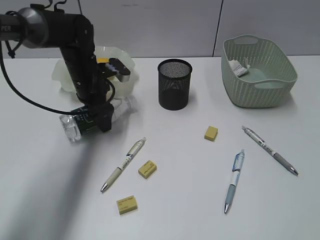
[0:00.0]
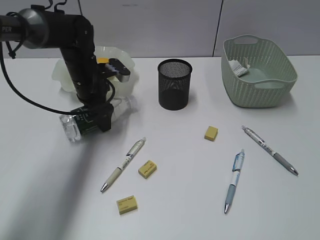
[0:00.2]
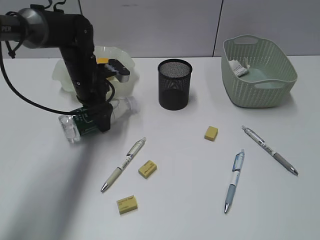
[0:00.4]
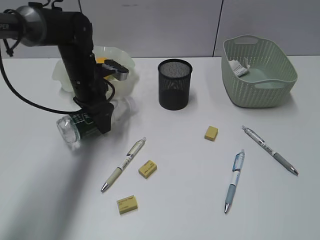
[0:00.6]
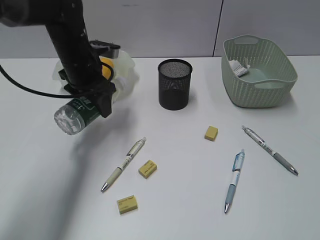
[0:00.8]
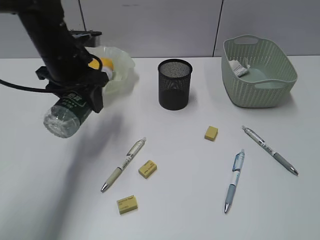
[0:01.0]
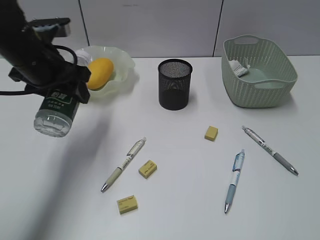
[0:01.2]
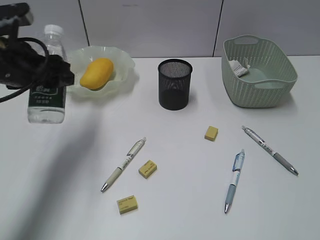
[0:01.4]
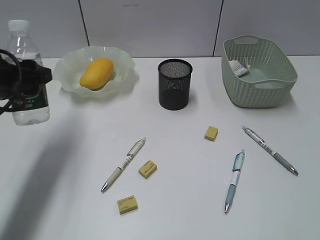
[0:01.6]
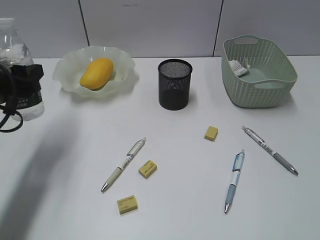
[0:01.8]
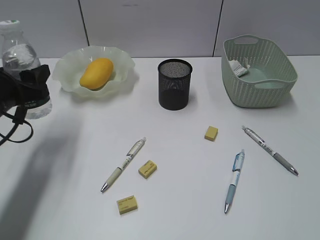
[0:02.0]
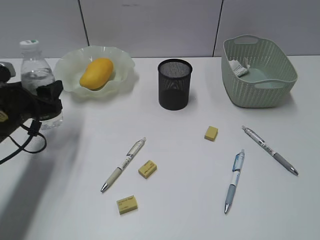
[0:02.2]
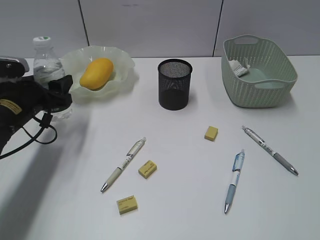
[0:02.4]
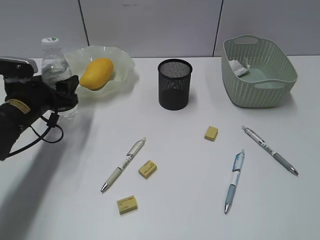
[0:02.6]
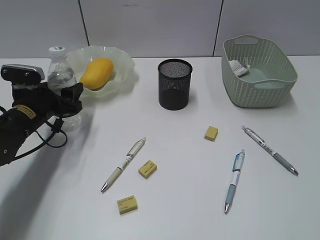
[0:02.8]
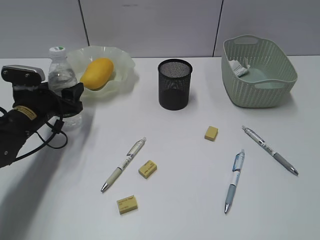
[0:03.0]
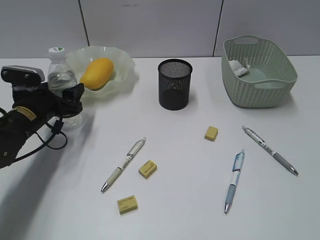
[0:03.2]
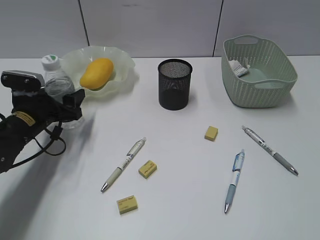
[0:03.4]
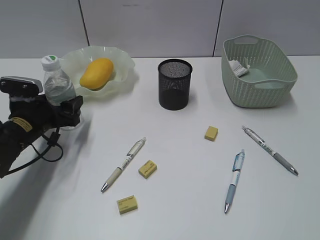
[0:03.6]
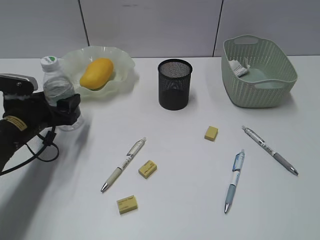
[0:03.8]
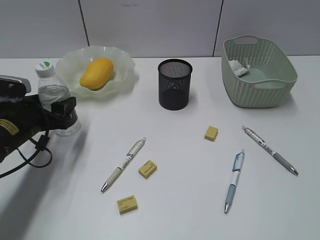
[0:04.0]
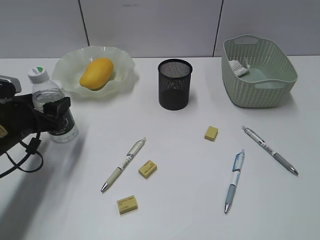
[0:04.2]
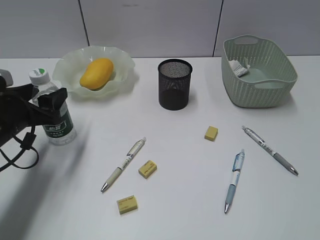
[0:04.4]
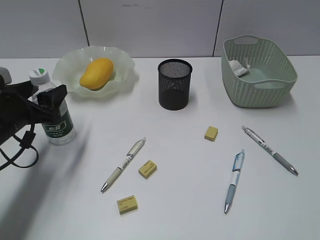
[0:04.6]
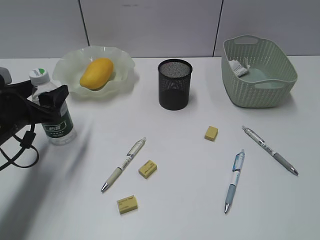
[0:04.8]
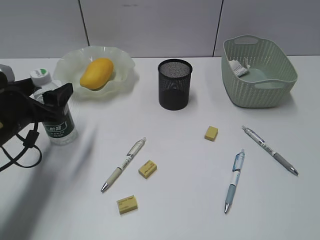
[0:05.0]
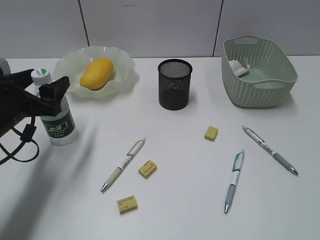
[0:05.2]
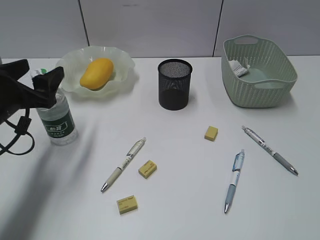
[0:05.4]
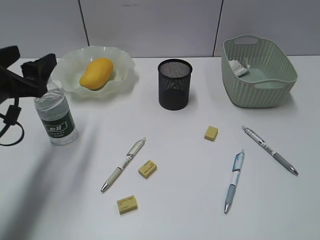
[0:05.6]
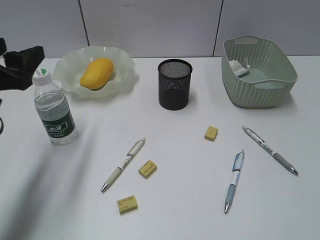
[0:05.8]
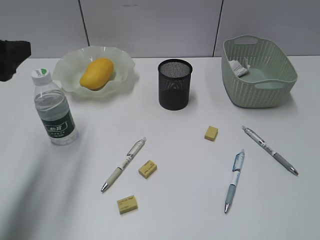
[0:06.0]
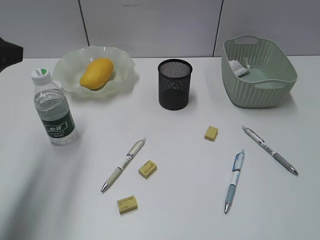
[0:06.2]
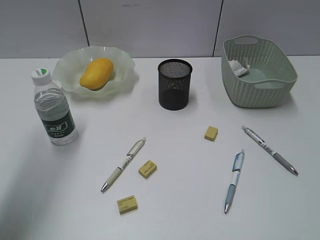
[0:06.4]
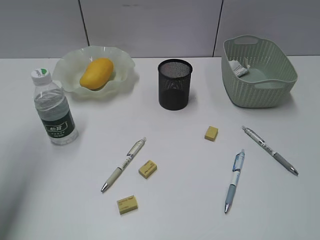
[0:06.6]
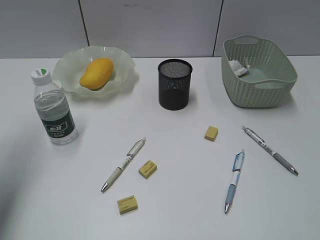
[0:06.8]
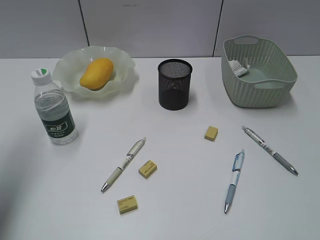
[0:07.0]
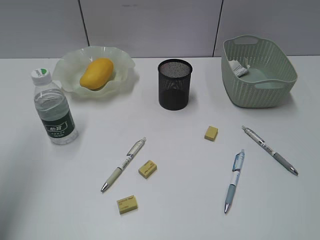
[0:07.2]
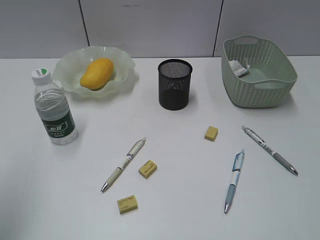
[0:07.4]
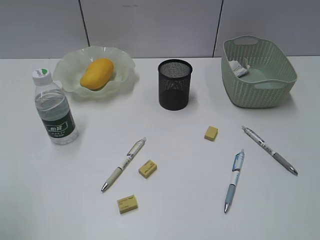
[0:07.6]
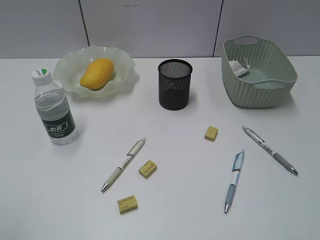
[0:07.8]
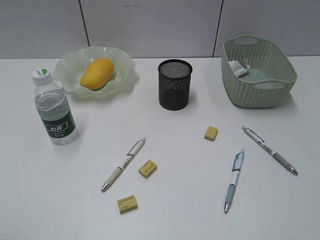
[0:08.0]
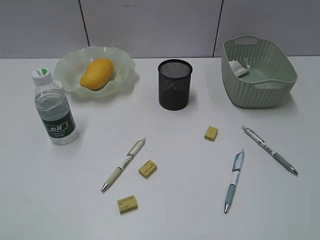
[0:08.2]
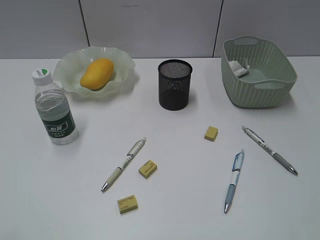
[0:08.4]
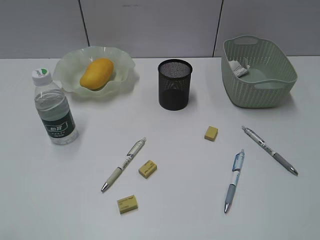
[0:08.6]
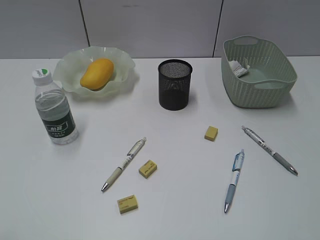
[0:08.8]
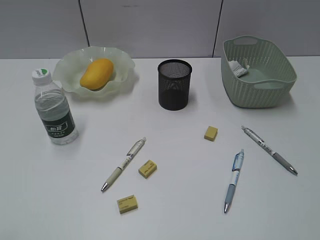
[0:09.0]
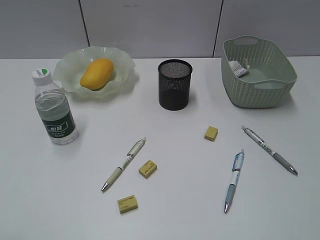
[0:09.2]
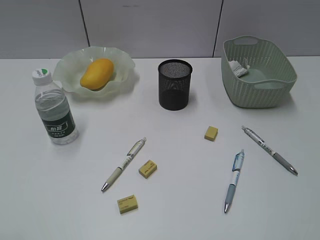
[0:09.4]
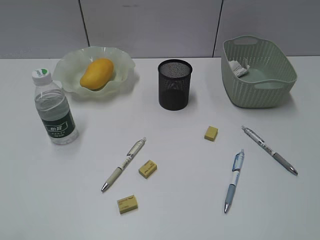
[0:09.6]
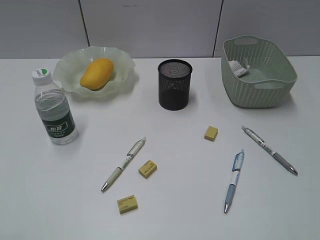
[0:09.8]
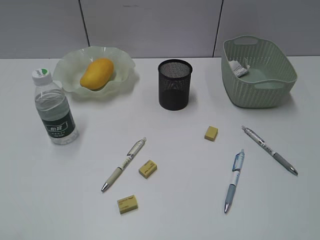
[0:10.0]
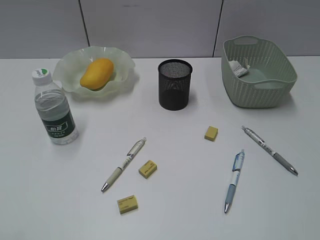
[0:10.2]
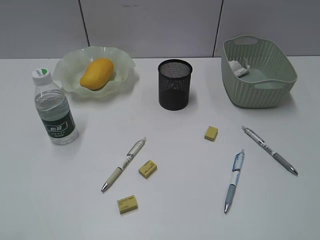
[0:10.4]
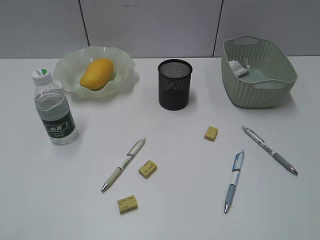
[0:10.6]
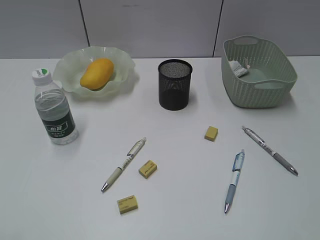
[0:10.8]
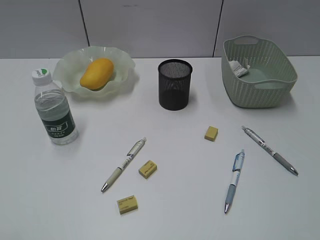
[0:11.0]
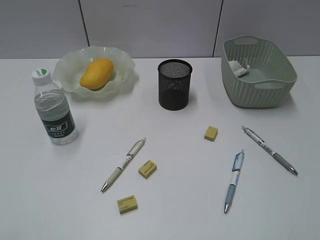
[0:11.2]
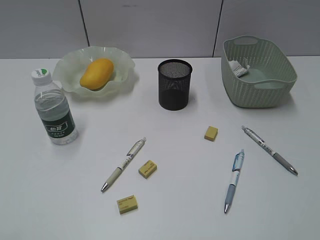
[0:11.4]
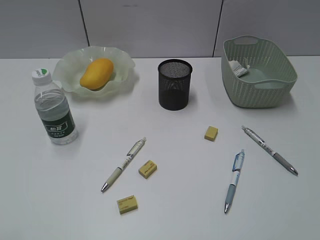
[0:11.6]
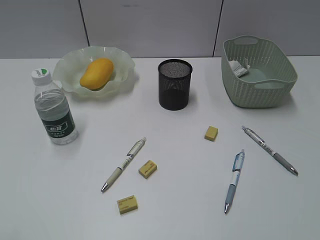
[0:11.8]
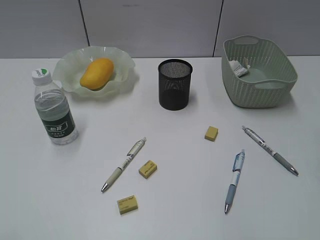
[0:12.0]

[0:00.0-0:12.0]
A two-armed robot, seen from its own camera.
Step, 0:00.4 to 0:05.4: Stand the bottle with left gripper.
0:00.0 to 0:01.6: The left gripper shifts some 20 cm backward, to the left and upward.
0:01.6 to 0:03.0: The left gripper moves downward and forward, some 15 cm.
0:03.0 to 0:04.4: The left gripper travels backward by about 5 cm.
0:04.4 to 0:06.0: The left gripper is displaced upward by roughly 15 cm.
0:06.0 to 0:07.6: The left gripper is displaced backward, upward and to the left by approximately 15 cm.

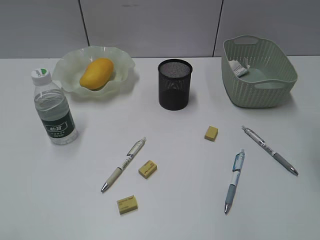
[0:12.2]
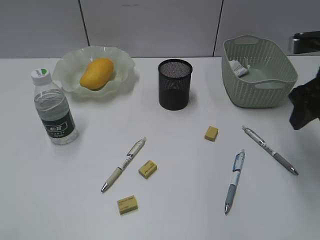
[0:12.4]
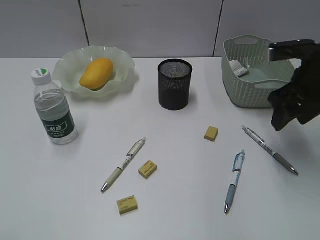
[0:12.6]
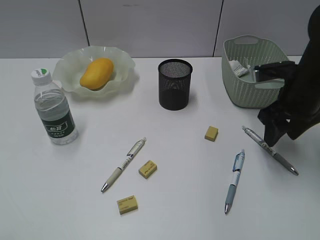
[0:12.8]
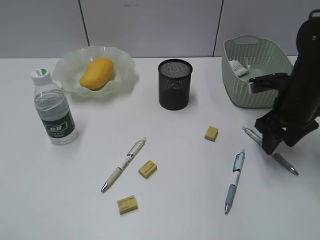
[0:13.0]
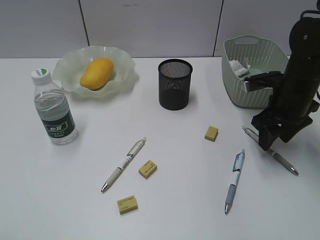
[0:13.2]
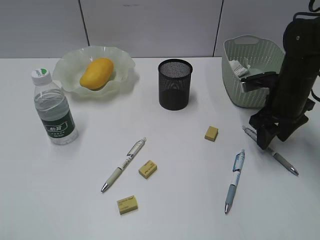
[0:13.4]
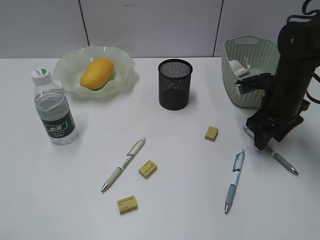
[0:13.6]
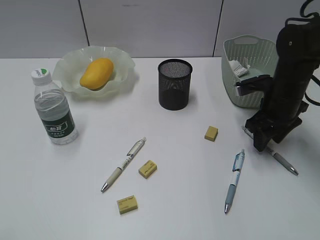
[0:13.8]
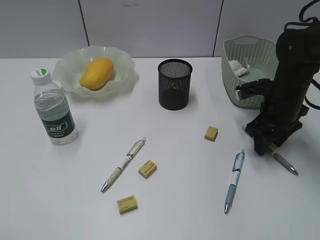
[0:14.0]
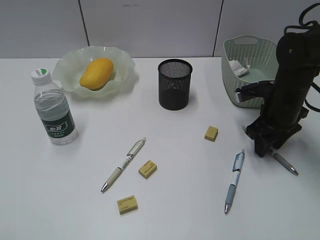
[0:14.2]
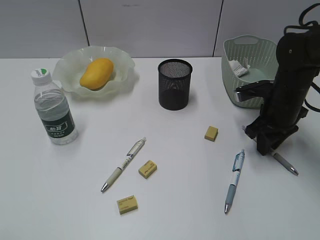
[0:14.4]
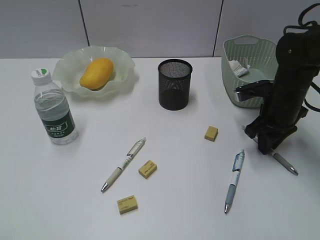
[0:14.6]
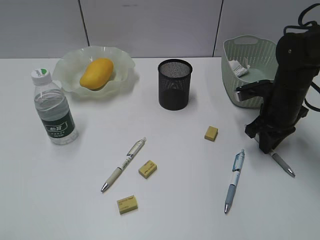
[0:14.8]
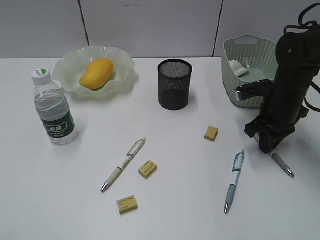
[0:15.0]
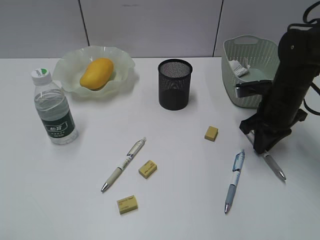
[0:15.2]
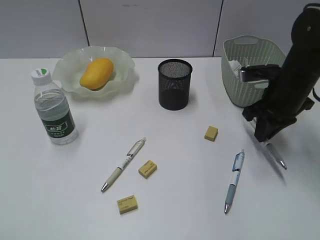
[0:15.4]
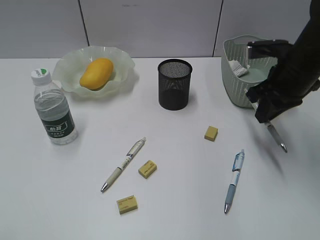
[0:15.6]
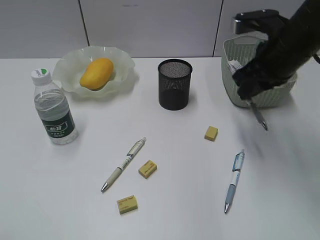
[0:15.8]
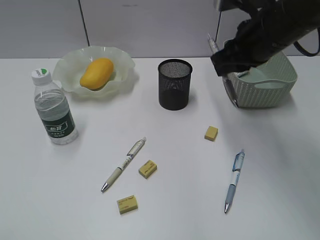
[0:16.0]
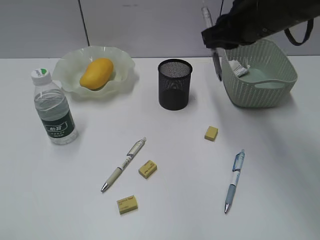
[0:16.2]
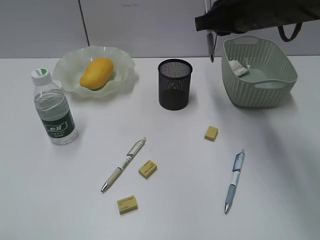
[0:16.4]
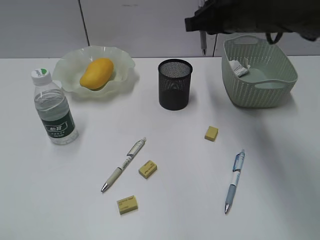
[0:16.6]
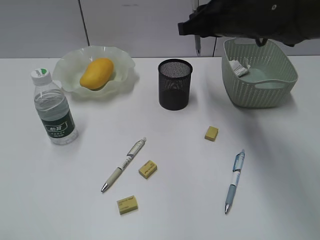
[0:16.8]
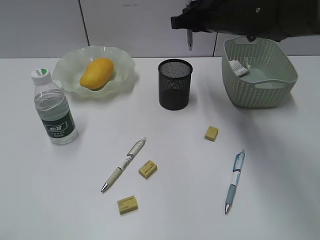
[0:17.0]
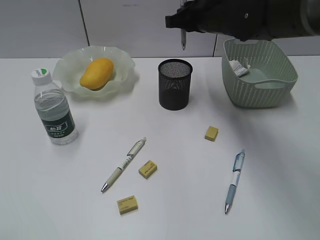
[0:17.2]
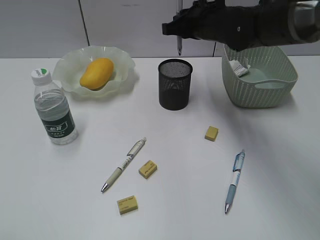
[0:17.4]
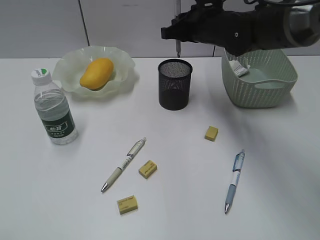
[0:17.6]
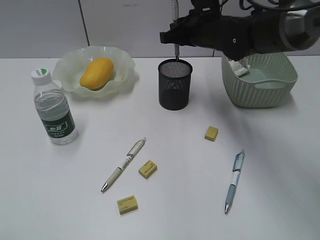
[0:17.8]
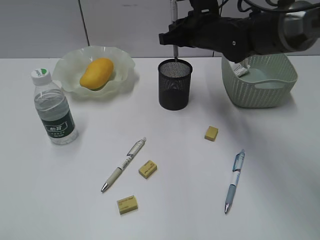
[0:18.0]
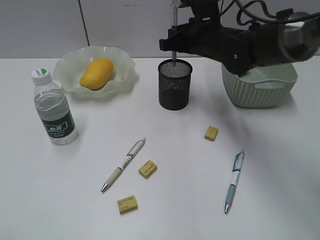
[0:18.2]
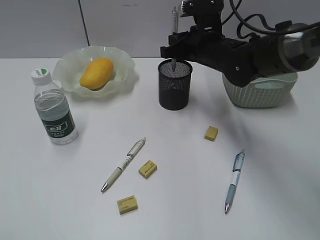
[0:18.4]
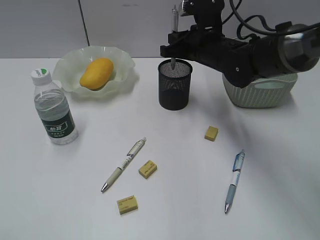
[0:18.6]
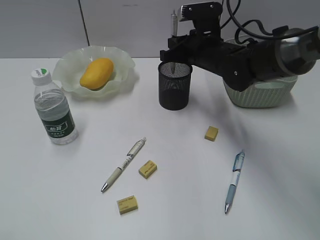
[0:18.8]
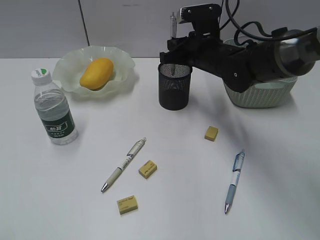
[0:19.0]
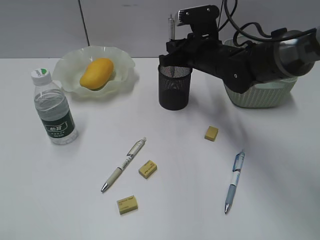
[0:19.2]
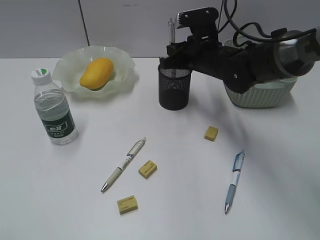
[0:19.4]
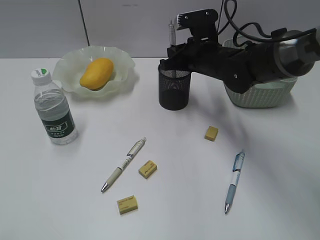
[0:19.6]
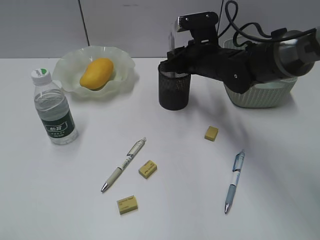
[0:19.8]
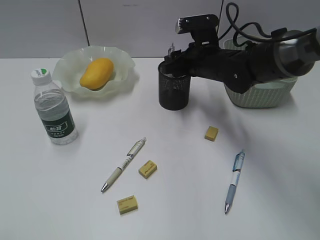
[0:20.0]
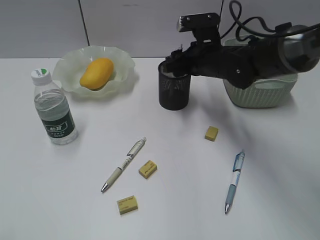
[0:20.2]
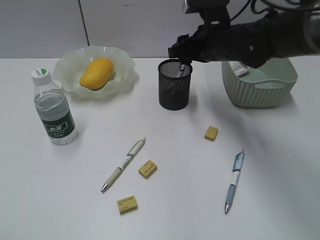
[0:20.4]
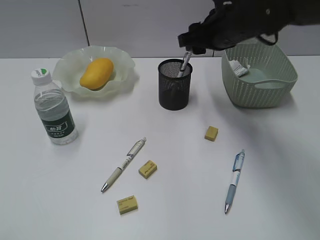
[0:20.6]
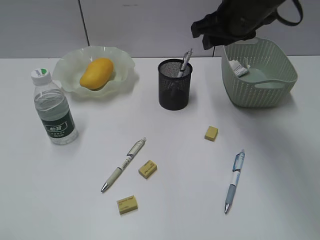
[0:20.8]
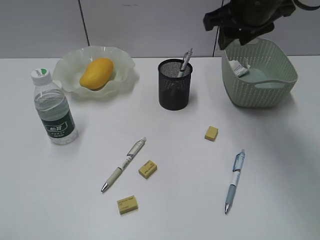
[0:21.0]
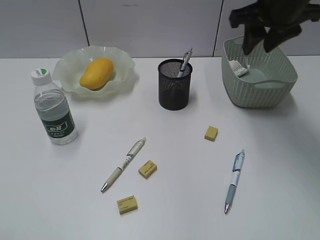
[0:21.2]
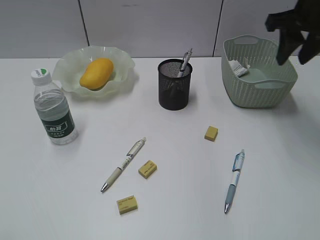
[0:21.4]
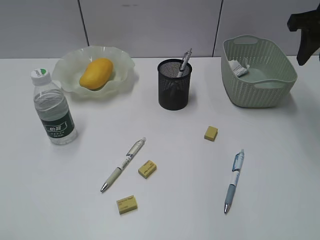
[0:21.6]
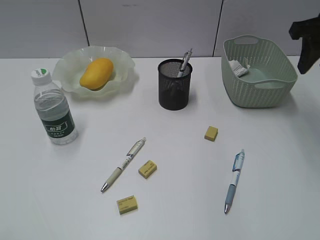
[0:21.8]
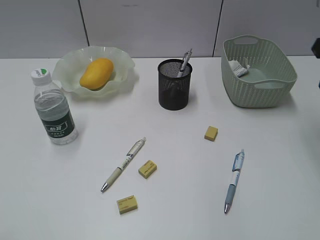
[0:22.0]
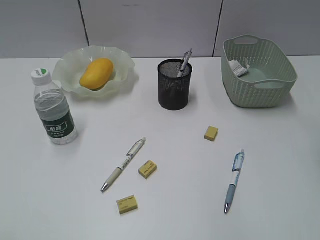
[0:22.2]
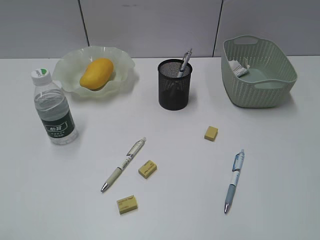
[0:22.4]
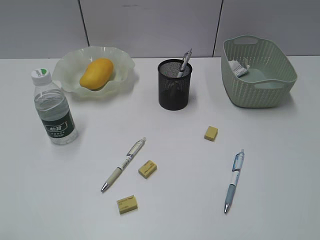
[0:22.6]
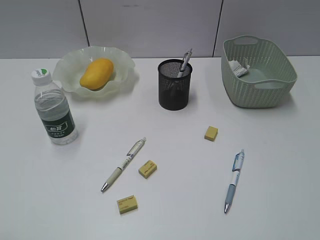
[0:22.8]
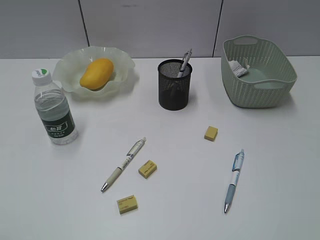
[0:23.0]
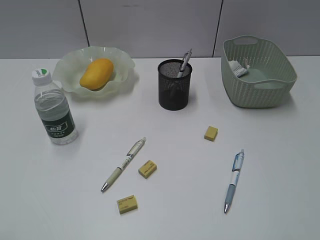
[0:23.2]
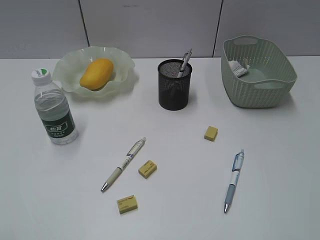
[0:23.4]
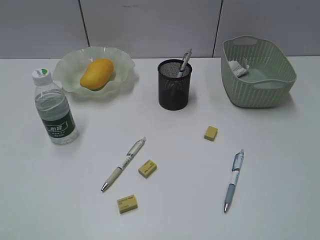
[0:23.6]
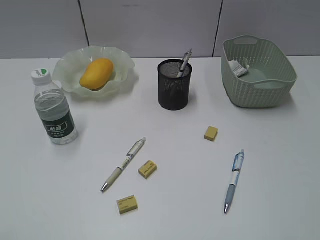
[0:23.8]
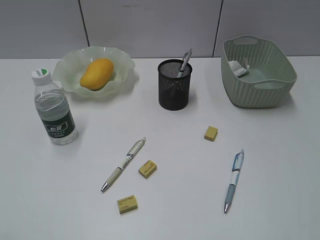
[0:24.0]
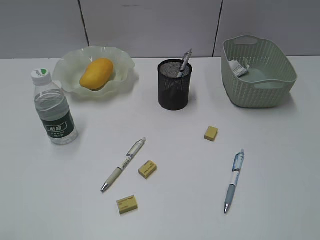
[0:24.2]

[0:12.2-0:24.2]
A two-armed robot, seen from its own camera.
Step, 0:12.2 to 0:14.8: Grasp the gray pen with right gripper.
Step, 0:15.0 to 0:20.4: Place the gray pen in pen holder with right gripper.
0:12.2 to 0:13.8: The right gripper moves downward and forward, some 20 cm.
0:13.8 to 0:15.2: The right gripper closes its fingers.
0:15.2 to 0:16.6: The right gripper is displaced upward and to the left by some 20 cm.
0:16.6 to 0:18.2: The right gripper goes some 10 cm downward and forward.
0:18.2 to 0:19.8: The grippers make only small movements.
0:19.8 to 0:21.2: The right gripper moves upward and to the right, roughly 15 cm, and opens up.
0:21.2 to 0:22.6: The right gripper moves backward and to the right, roughly 25 cm.
